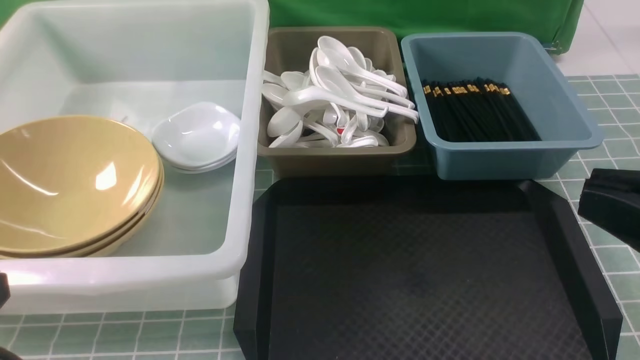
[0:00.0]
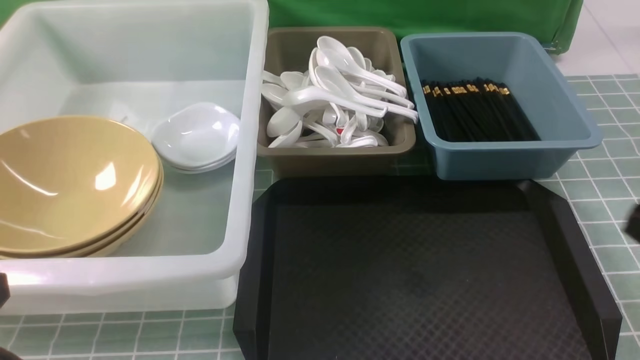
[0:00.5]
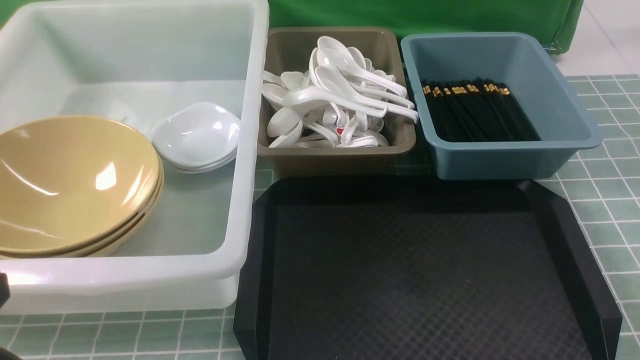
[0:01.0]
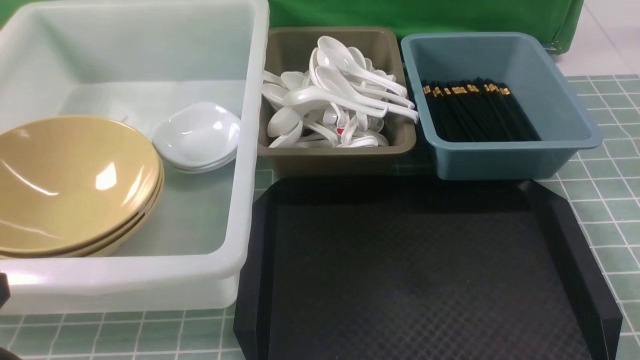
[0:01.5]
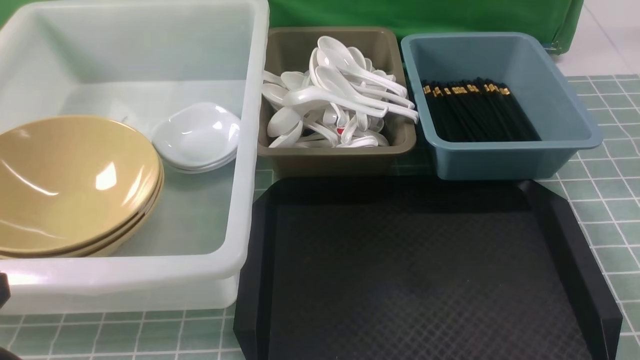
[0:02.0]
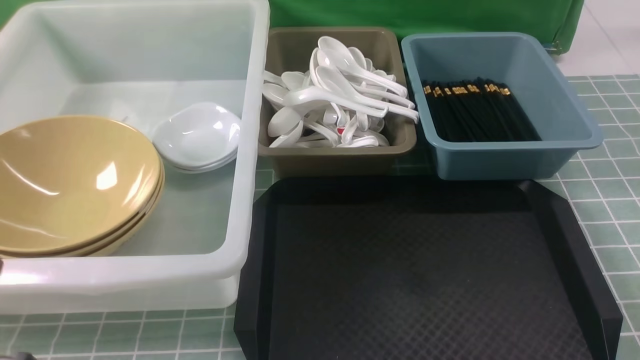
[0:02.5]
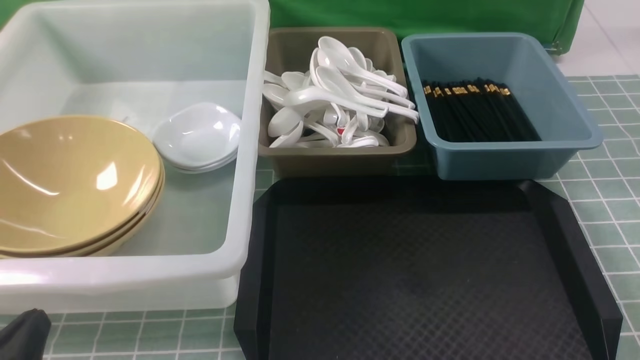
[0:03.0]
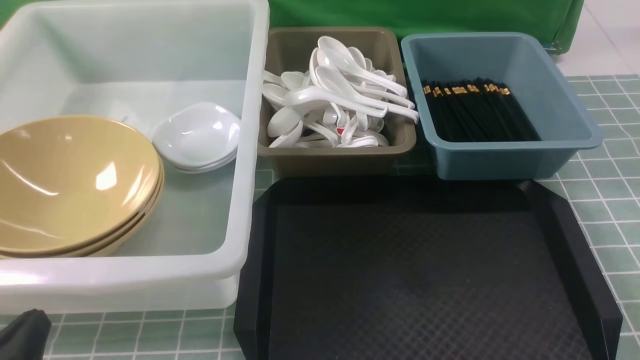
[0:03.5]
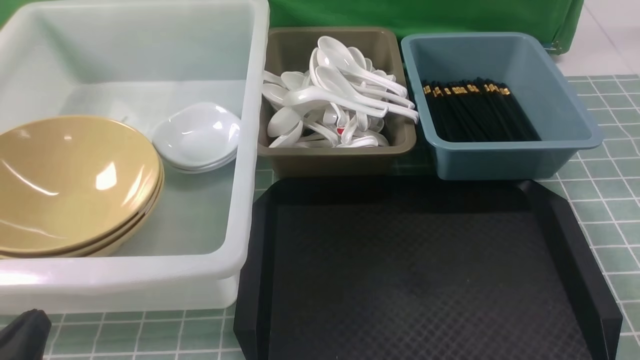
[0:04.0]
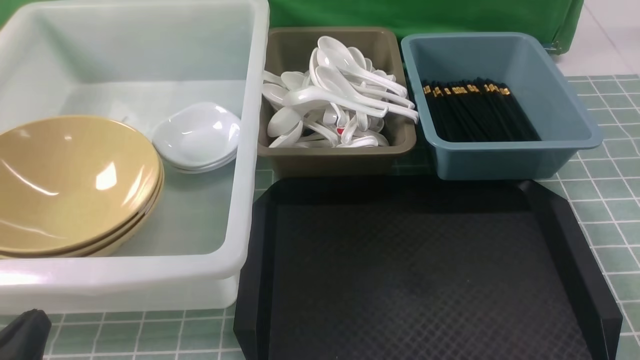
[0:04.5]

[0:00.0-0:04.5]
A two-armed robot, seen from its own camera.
Task of the whole recording: on blue table put chopsticks spoon bowls plates into blue grey white boxes.
0:00.0 to 0:02.0: The right gripper moves downward and to the right, some 20 cm.
0:02.0 to 0:04.5: The left gripper shifts roughly 10 cm downward.
